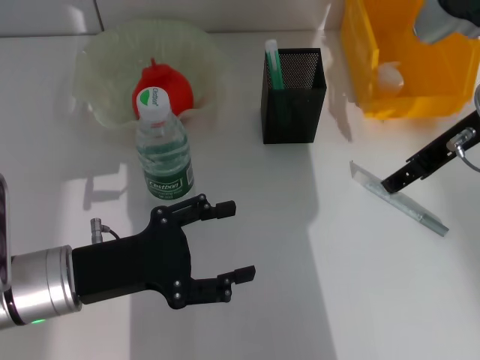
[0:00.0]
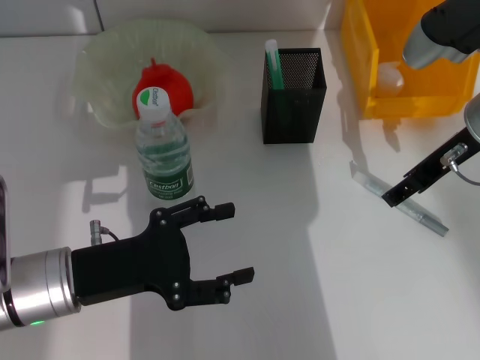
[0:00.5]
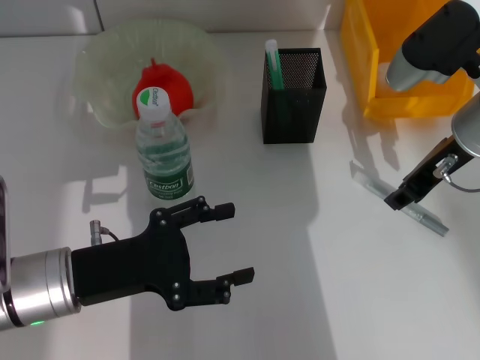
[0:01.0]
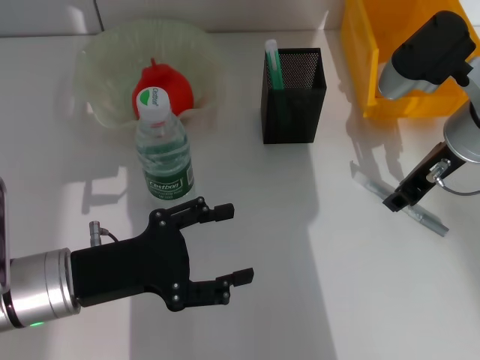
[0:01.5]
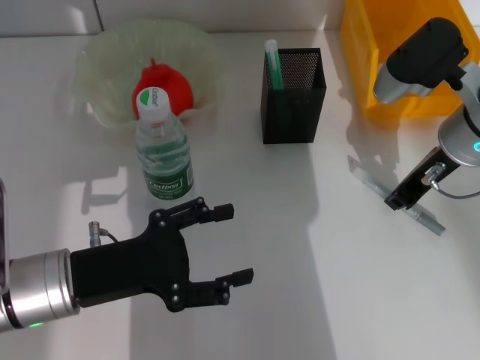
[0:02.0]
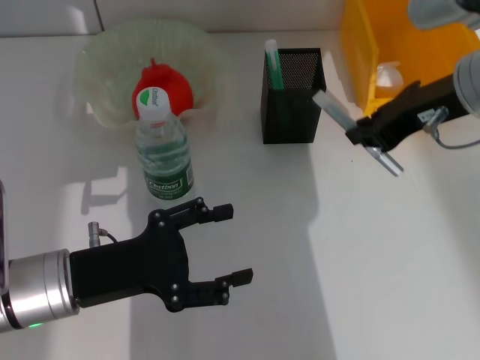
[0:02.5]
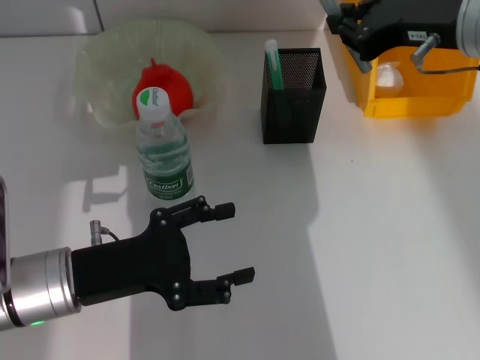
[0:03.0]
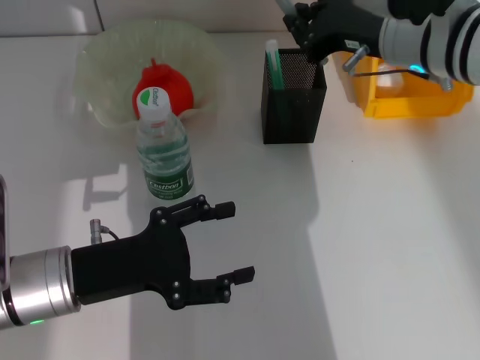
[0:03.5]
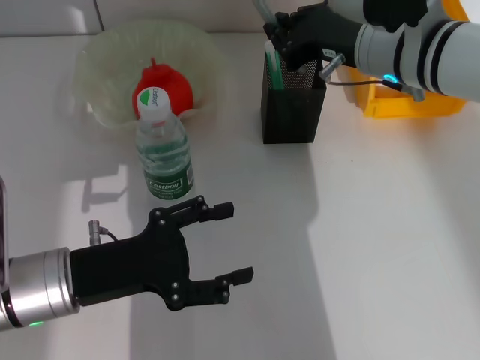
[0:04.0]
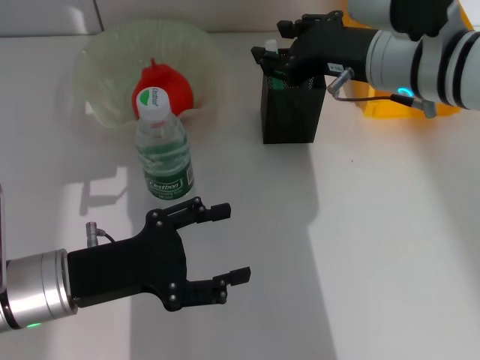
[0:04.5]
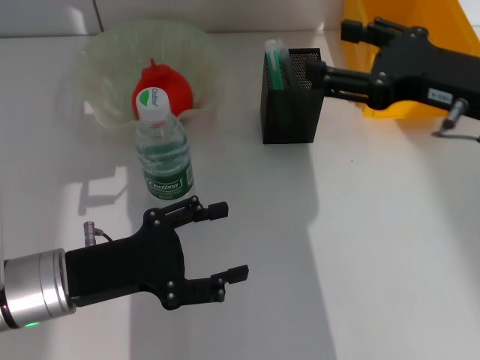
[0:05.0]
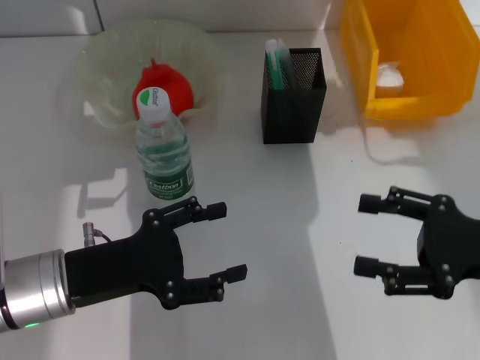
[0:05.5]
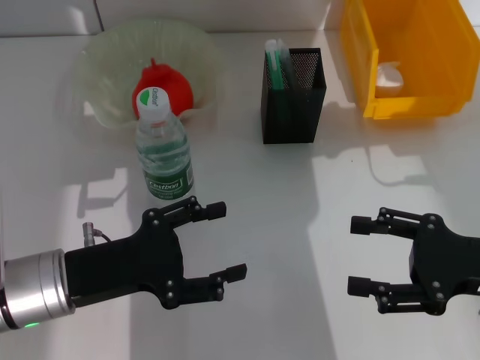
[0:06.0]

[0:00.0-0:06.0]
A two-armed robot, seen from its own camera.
Step, 0:00.0 to 0:01.5: Grab the gray glue with the right hand.
Step, 0:02.5 to 0:04.0: Place the gray glue into the pen holder with the right hand.
0:00.0 to 0:02.0: The right gripper moves downward, about 5 cm, and closes up.
0:02.0 to 0:04.0: The right gripper heads to the left, covering some 5 cm.
0:04.0 to 0:06.0: The right gripper goes roughly 25 cm backward, to the right and downward, and opens its fingers.
